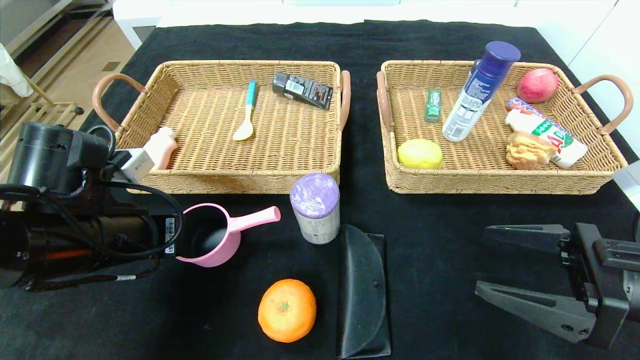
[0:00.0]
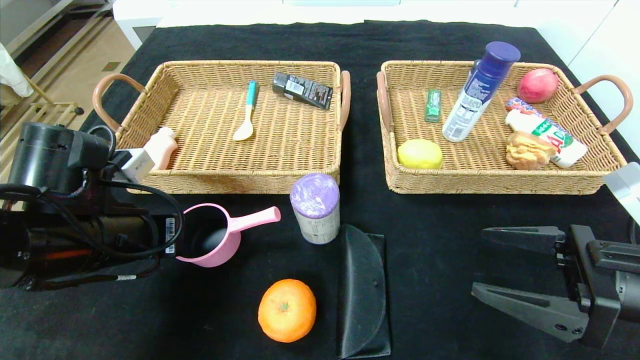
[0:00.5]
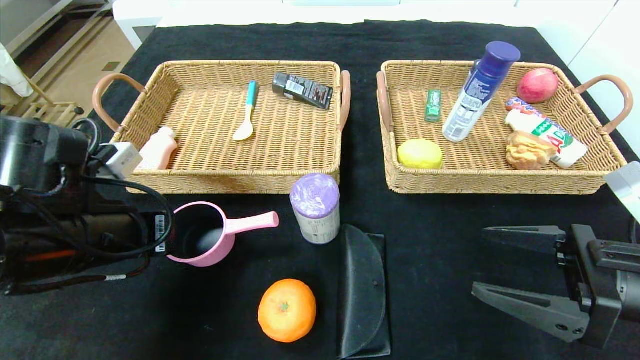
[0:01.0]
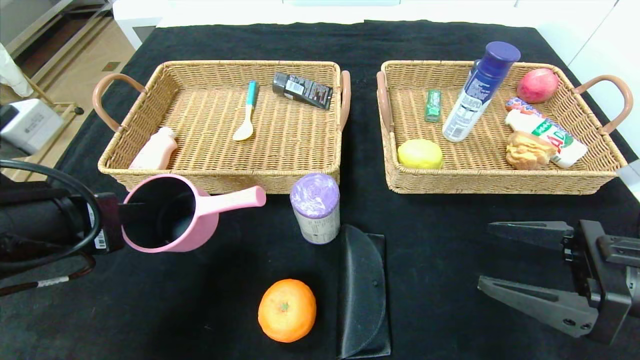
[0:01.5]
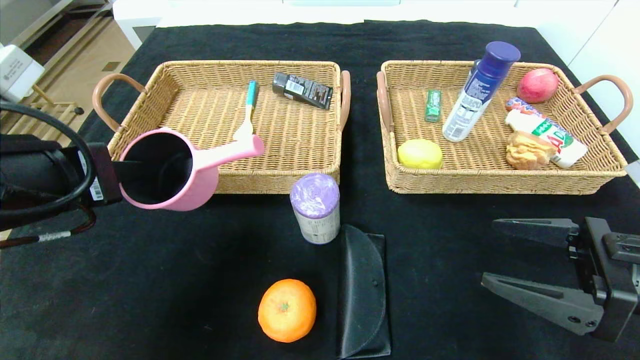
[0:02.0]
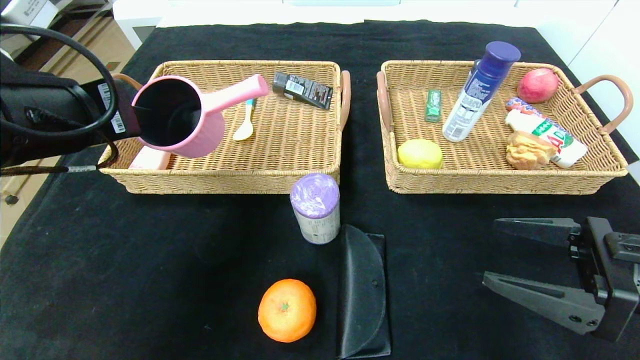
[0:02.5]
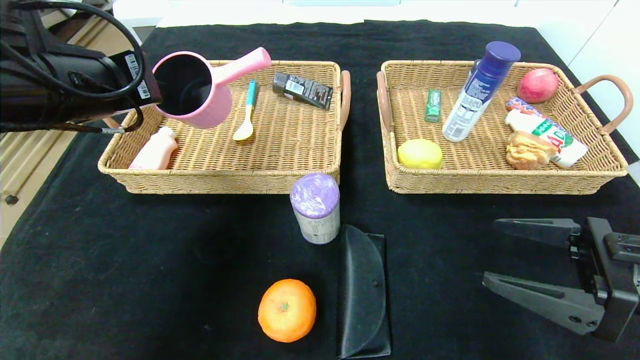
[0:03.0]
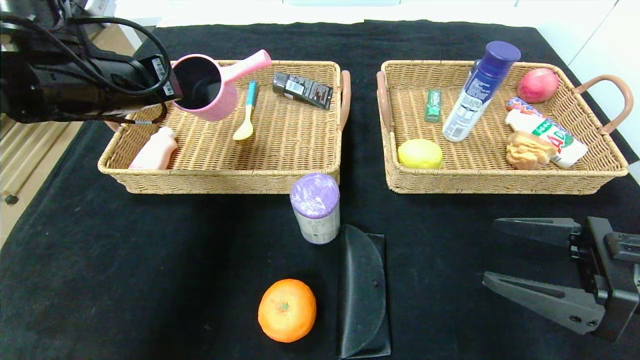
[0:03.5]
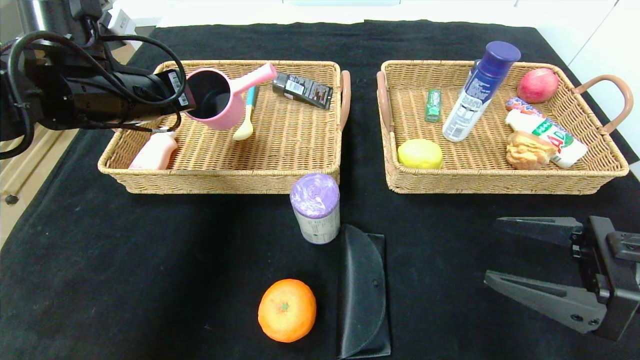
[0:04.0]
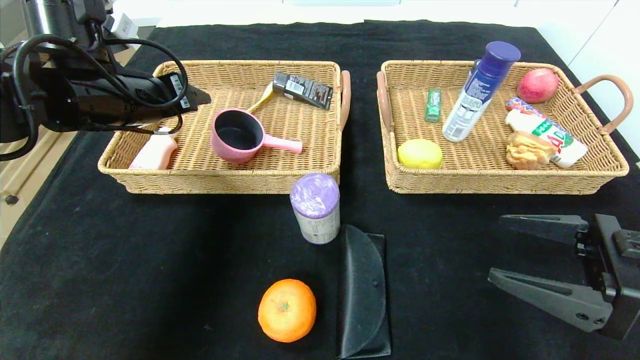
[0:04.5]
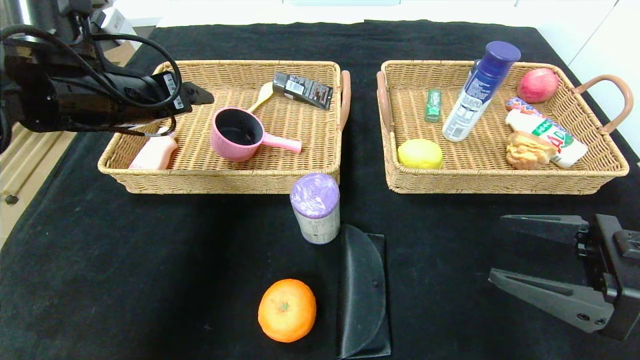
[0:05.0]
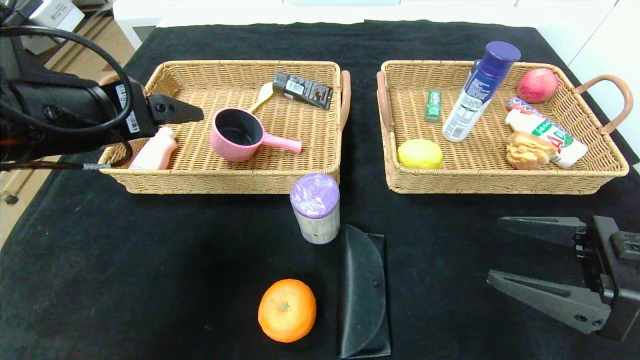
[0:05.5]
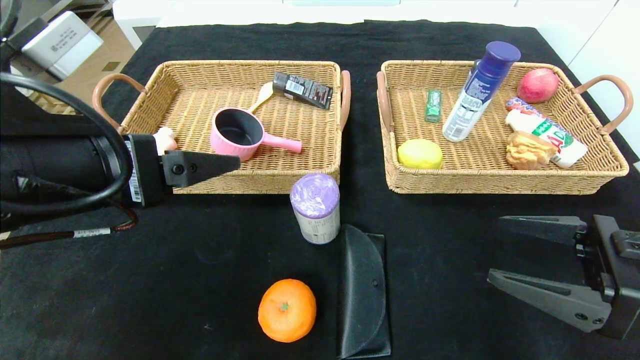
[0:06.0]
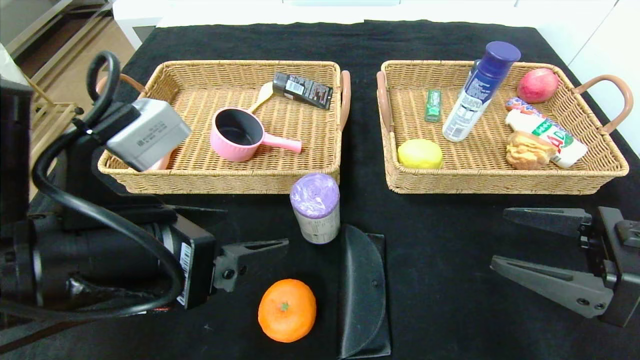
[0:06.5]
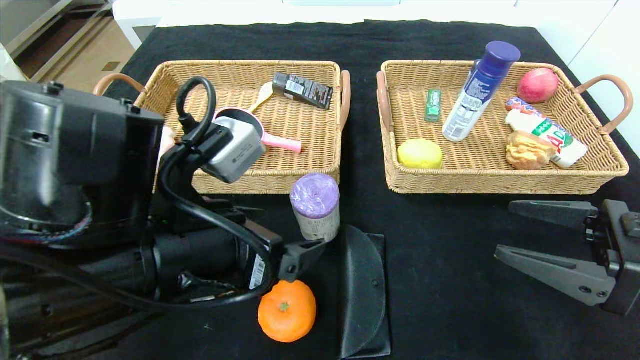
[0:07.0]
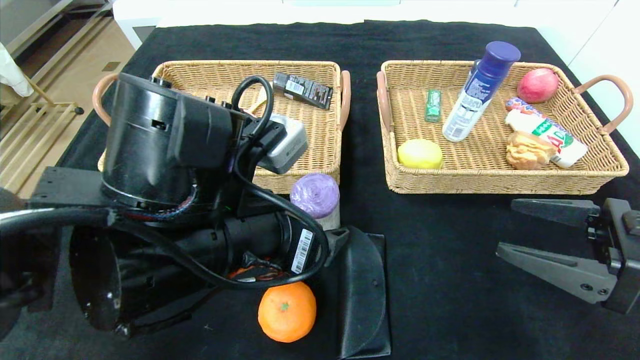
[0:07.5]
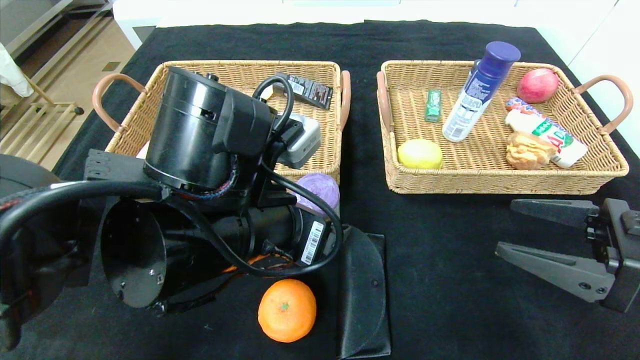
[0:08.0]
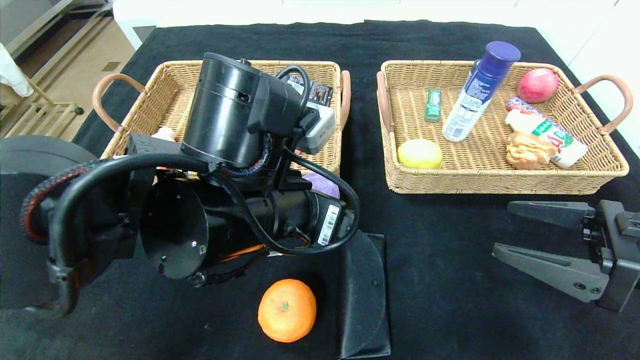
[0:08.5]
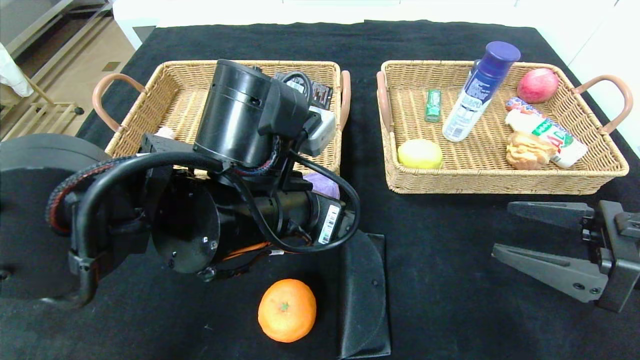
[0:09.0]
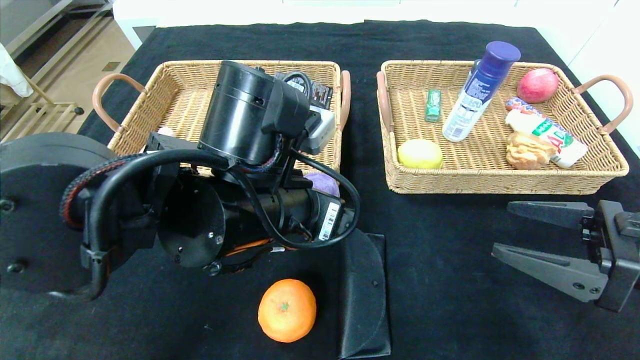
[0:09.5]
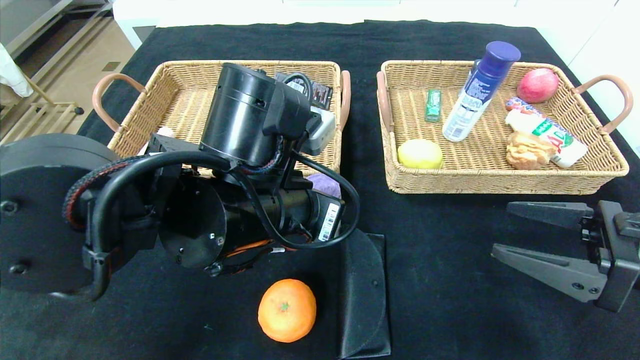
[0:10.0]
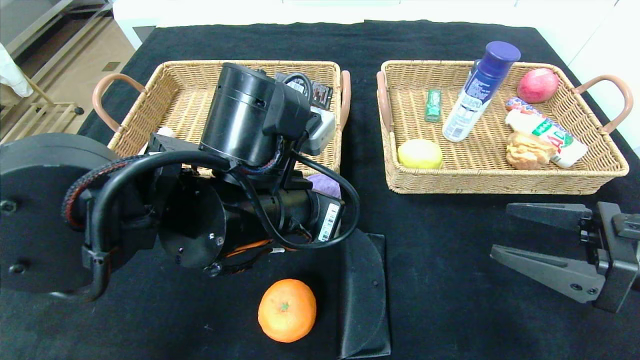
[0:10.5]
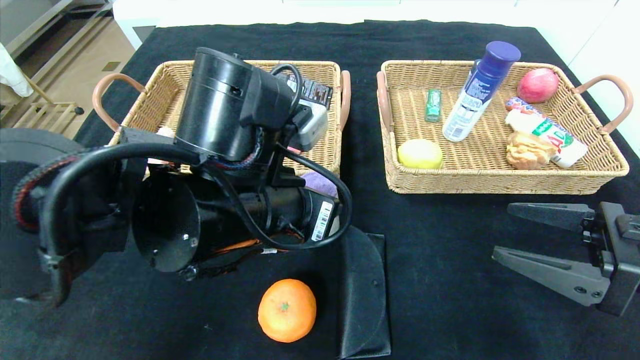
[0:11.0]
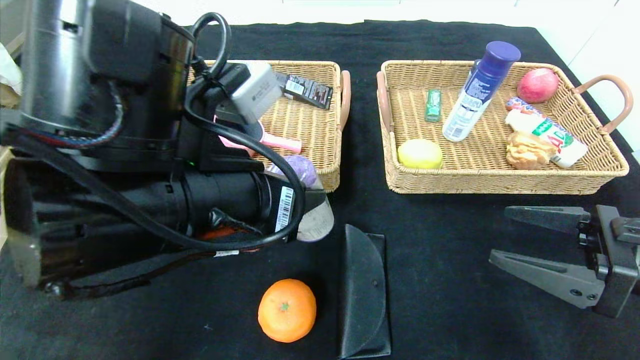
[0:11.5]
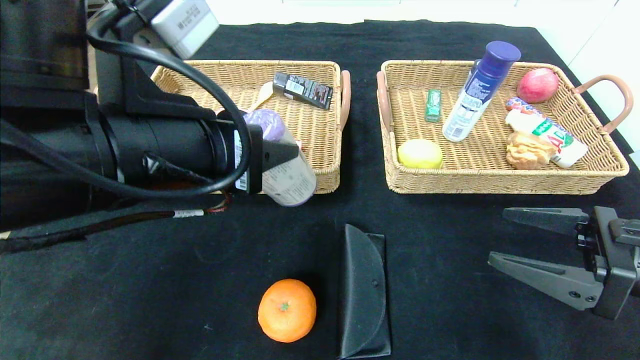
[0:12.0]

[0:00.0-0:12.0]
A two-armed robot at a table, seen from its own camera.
Step, 0:00.0 to 0:06.0: Grasp the pink pot and put it in the left basket.
0:00.0 to 0:02.0: The left gripper moves upward and backward, some 10 cm.
0:02.0 to 0:04.0: The left gripper heads forward, covering approximately 15 cm.
0:04.0 to 0:06.0: The left gripper is displaced backward by approximately 15 cm, and opens up.
0:06.0 to 0:08.0: The left gripper moves to the right and downward, roughly 15 cm.
0:08.0 to 0:10.0: The left gripper closes its fingers.
0:10.0 to 0:12.0: The left gripper goes about 10 cm upward and to the left.

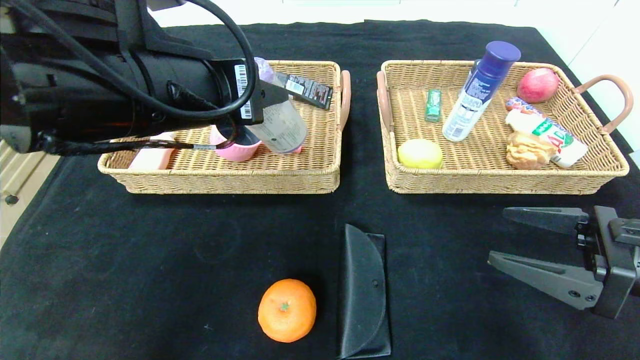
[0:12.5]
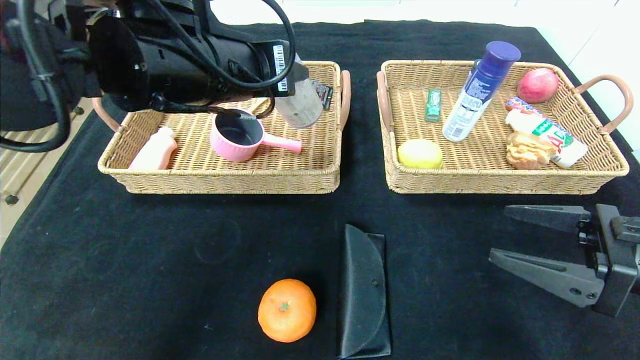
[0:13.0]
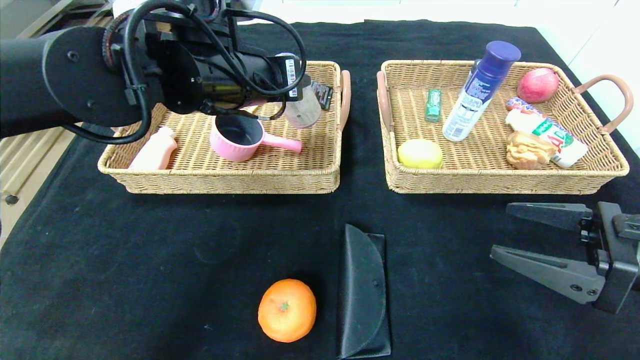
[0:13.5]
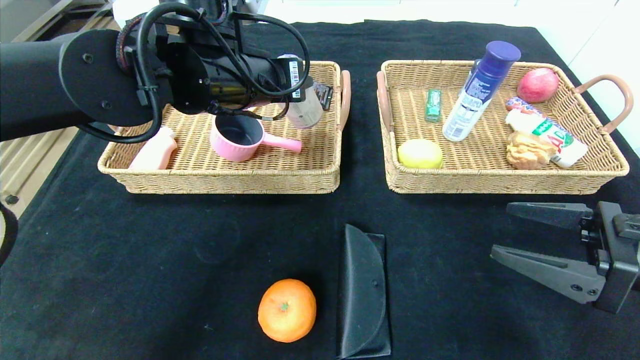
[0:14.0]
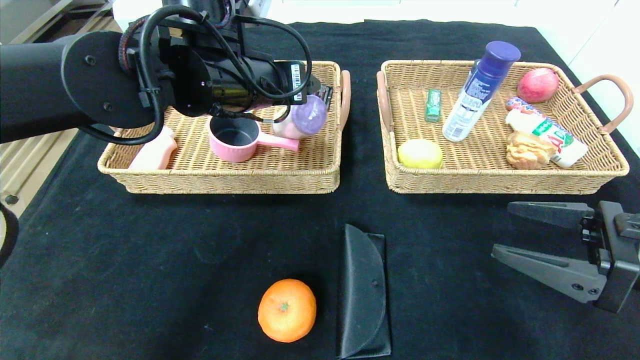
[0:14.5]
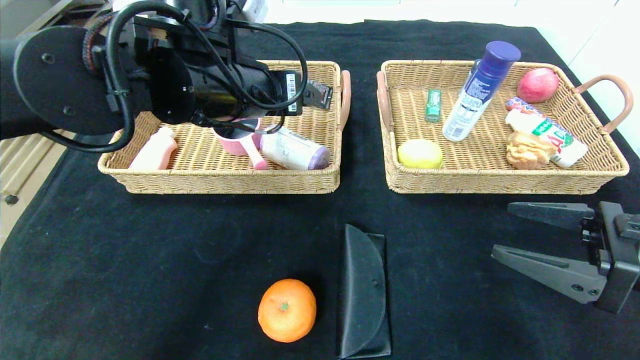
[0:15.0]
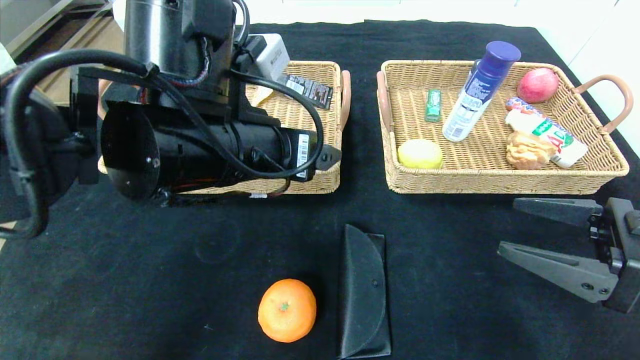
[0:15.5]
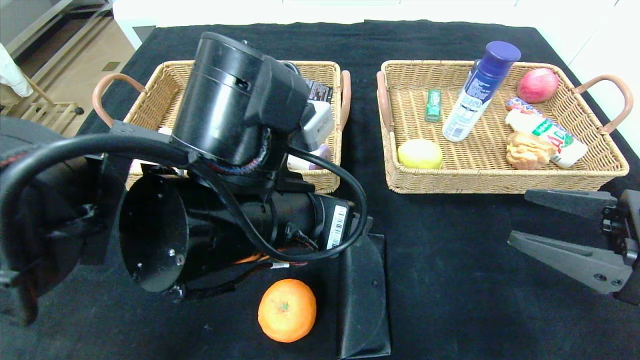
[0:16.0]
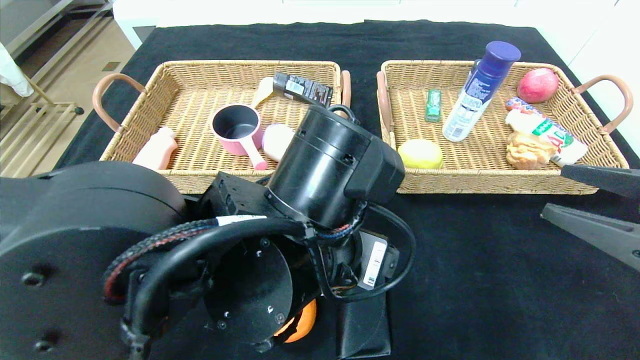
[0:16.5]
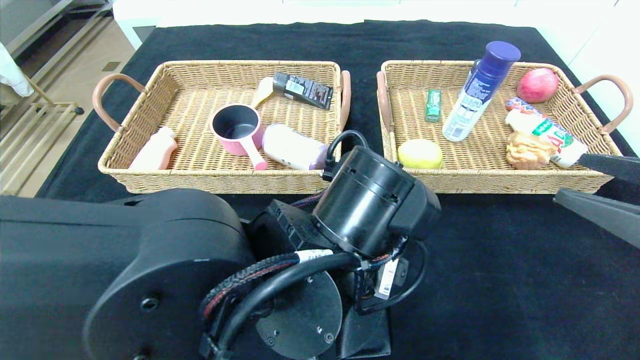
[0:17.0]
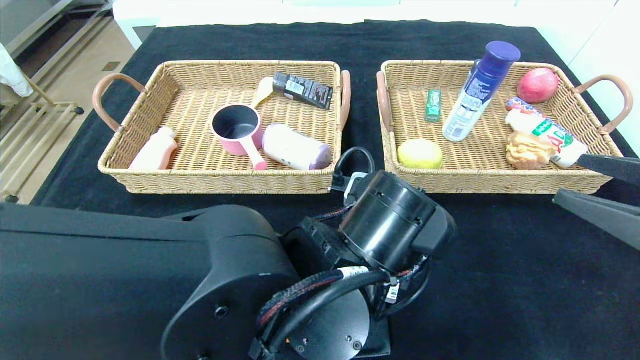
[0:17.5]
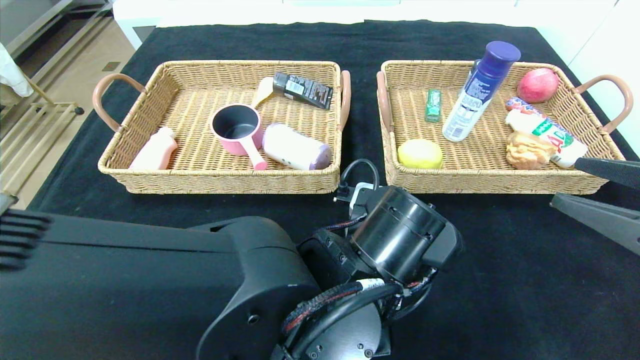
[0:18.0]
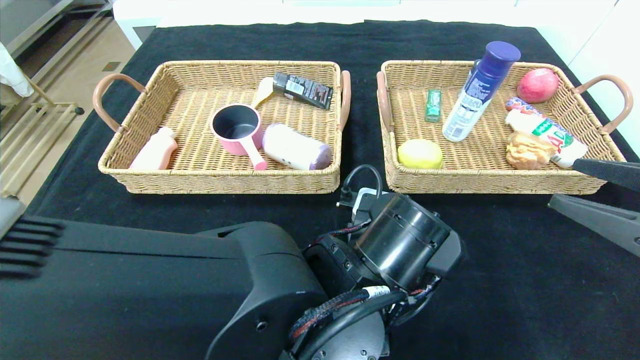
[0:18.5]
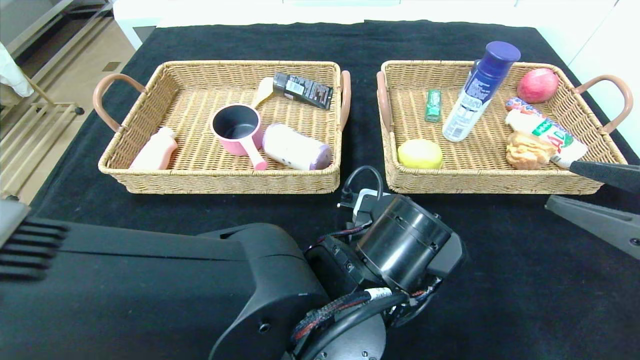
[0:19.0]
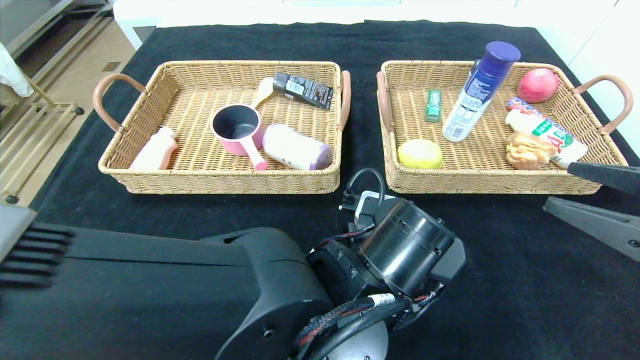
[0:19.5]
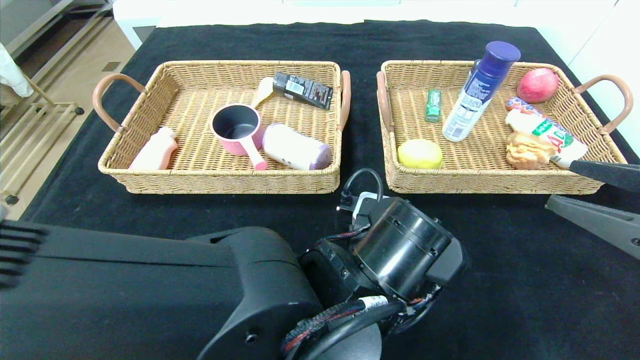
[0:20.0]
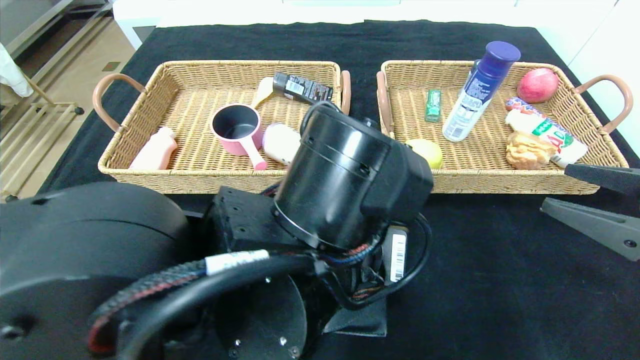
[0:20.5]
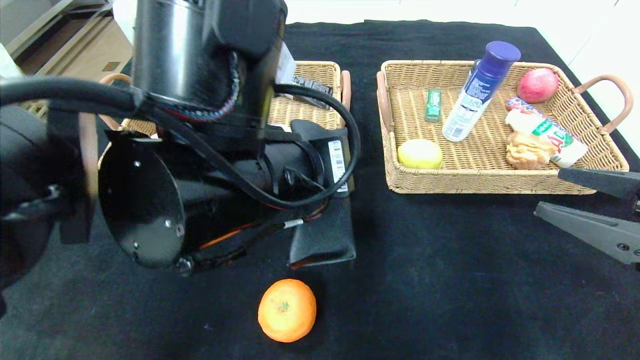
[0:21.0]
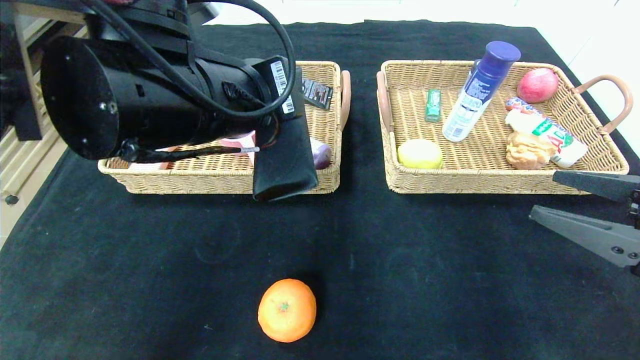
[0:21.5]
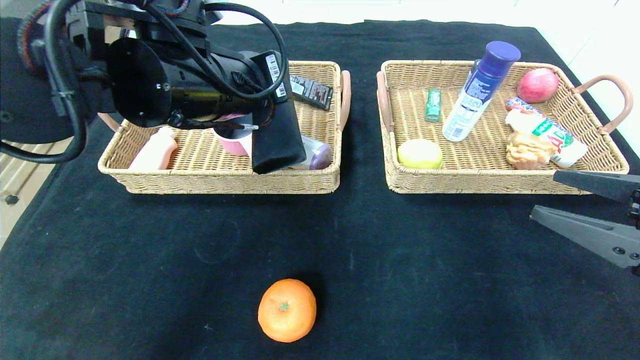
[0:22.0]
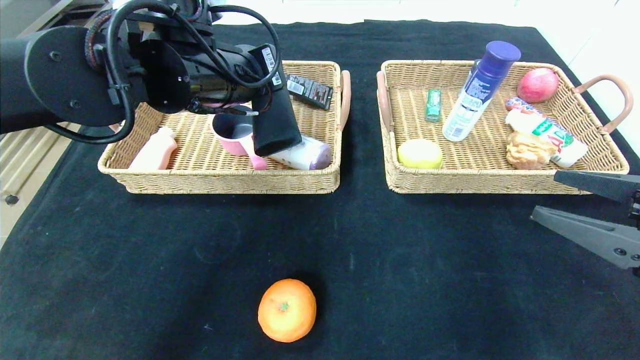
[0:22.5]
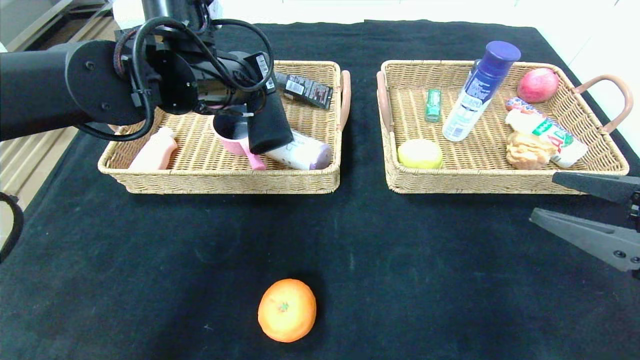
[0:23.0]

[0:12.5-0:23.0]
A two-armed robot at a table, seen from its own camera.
Step, 0:12.5 to 0:15.5: Grasp the purple garbage bag and put it in the left basket.
0:12.5 to 0:14.5: The left gripper moves forward, approximately 10 cm.
0:14.5 to 0:16.5: The left gripper shifts roughly 20 cm backward, downward and to the right.
0:16.5 to 0:19.0: The left gripper shifts roughly 5 cm downward, and closes.
0:19.0 to 0:21.0: The left gripper goes roughly 15 cm upward and to the left.
0:21.0 to 0:23.0: The left gripper travels forward and to the left by some 20 cm.
